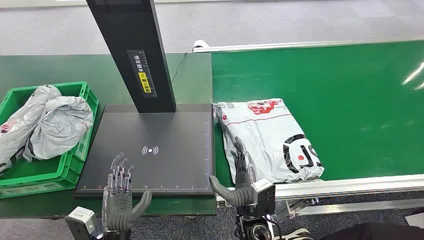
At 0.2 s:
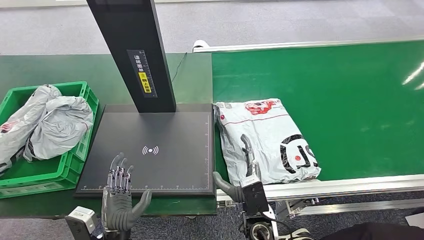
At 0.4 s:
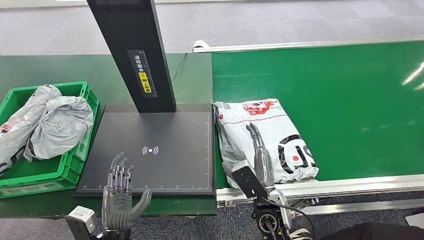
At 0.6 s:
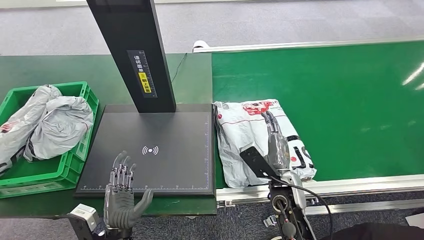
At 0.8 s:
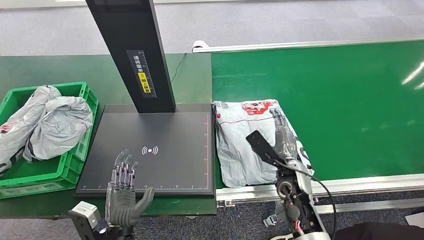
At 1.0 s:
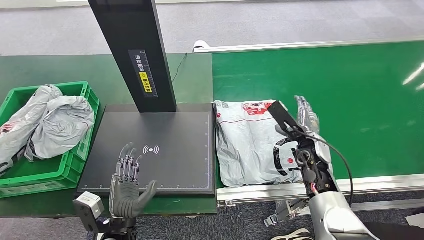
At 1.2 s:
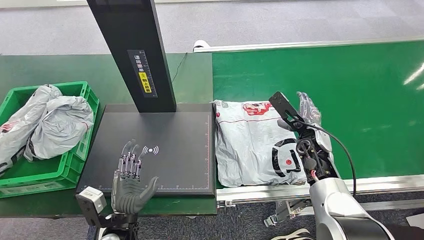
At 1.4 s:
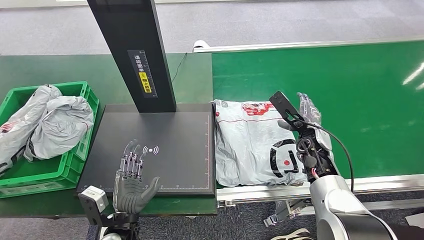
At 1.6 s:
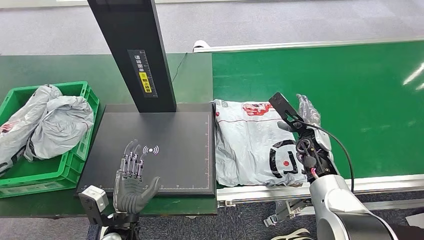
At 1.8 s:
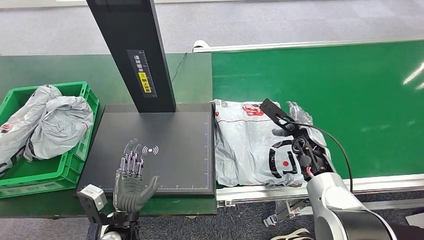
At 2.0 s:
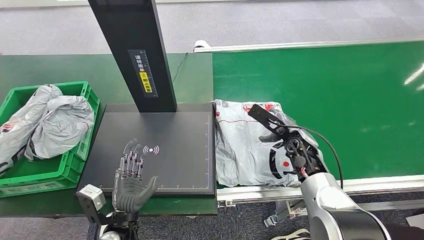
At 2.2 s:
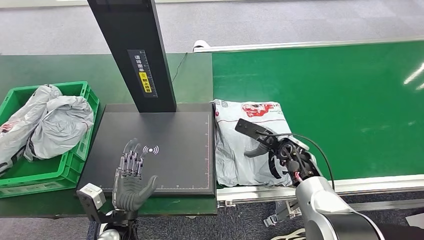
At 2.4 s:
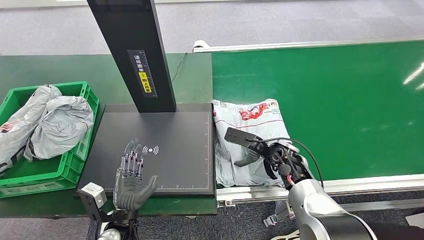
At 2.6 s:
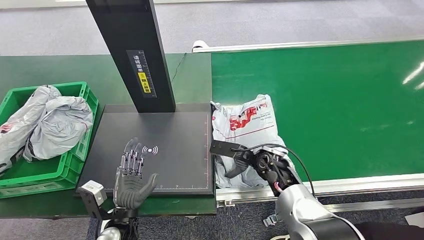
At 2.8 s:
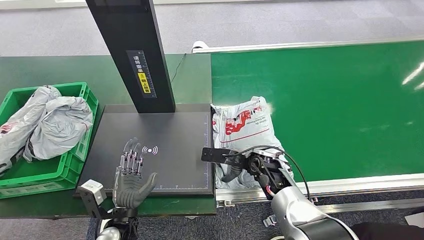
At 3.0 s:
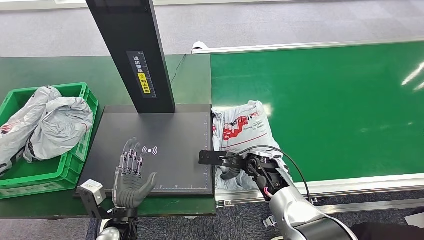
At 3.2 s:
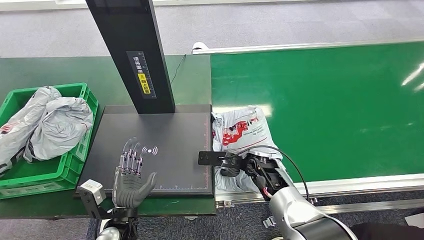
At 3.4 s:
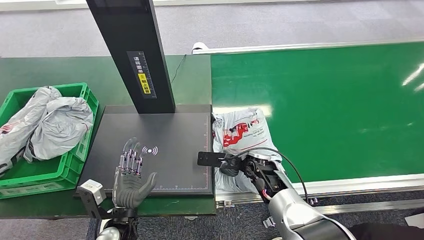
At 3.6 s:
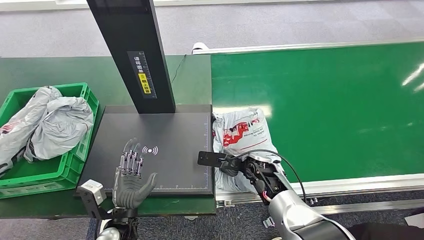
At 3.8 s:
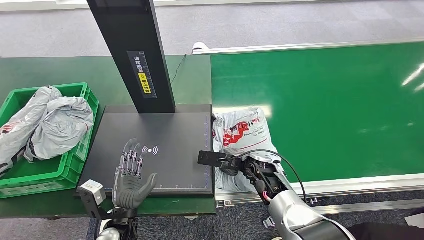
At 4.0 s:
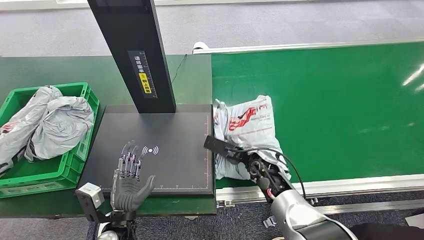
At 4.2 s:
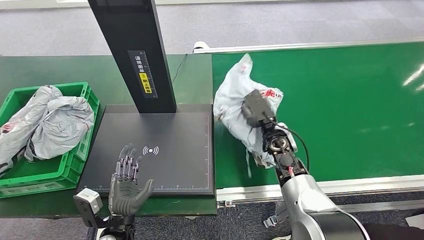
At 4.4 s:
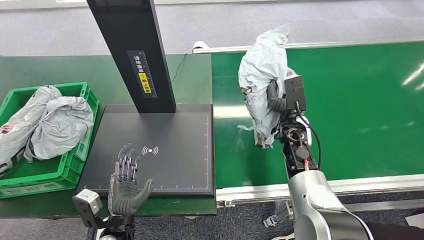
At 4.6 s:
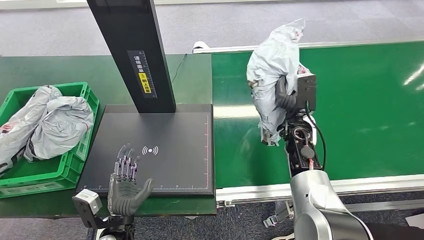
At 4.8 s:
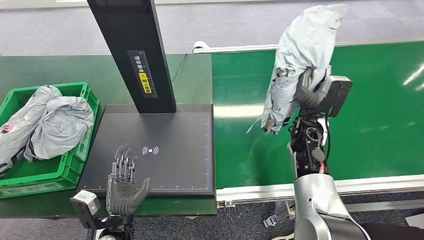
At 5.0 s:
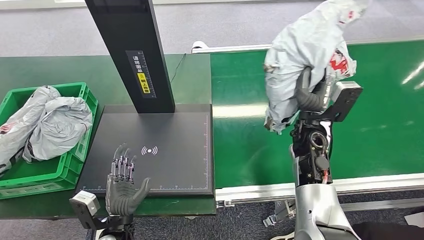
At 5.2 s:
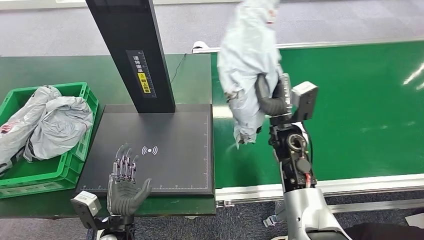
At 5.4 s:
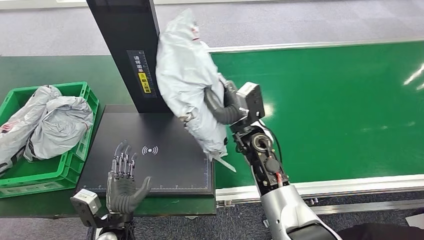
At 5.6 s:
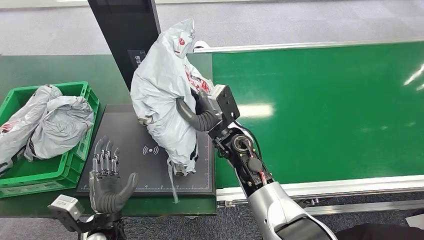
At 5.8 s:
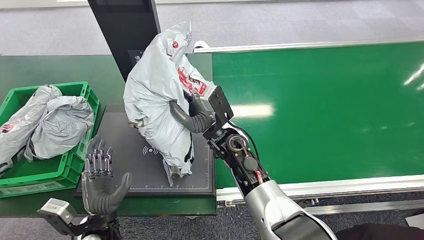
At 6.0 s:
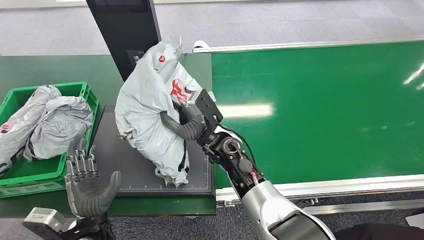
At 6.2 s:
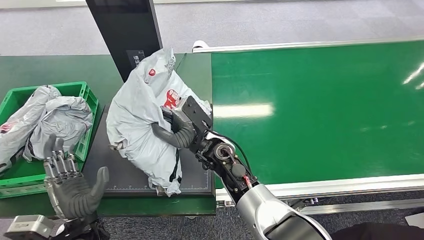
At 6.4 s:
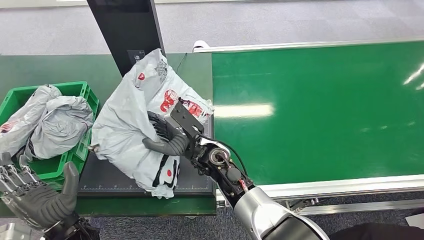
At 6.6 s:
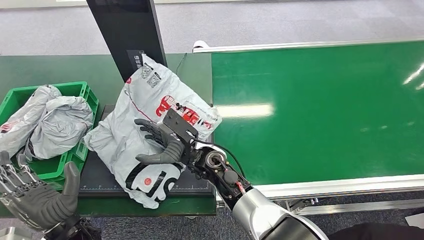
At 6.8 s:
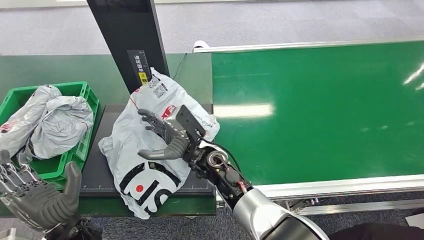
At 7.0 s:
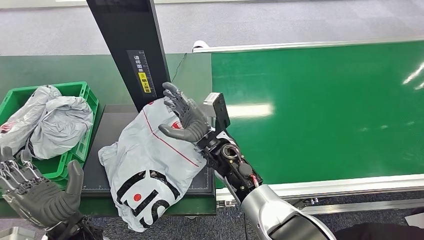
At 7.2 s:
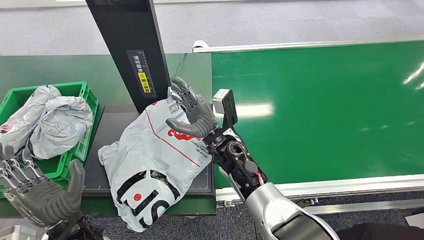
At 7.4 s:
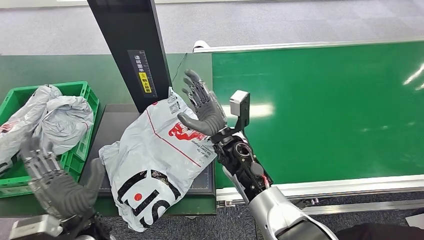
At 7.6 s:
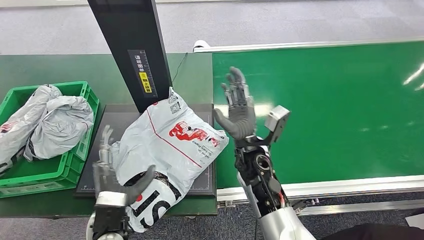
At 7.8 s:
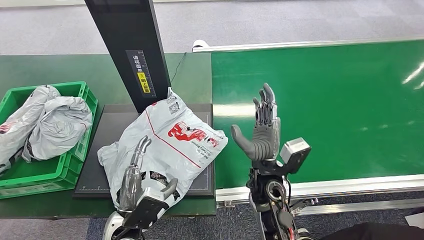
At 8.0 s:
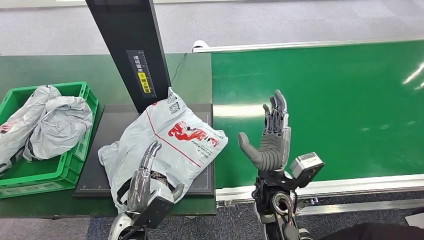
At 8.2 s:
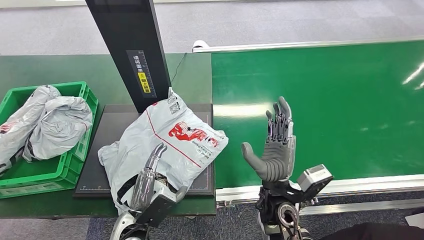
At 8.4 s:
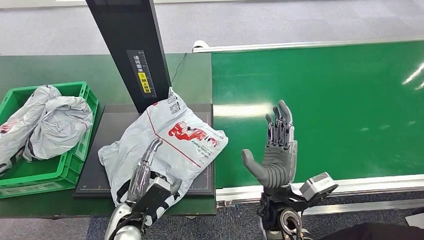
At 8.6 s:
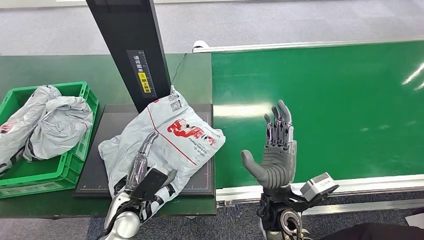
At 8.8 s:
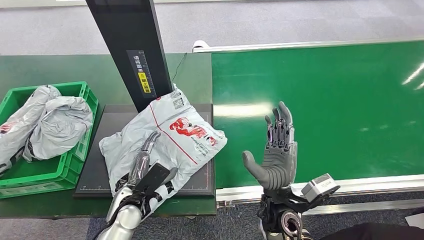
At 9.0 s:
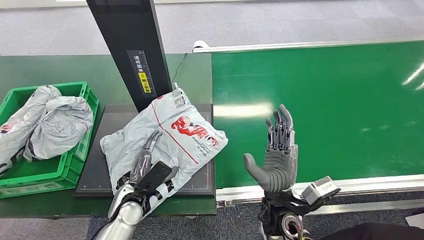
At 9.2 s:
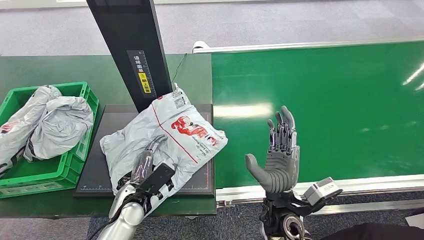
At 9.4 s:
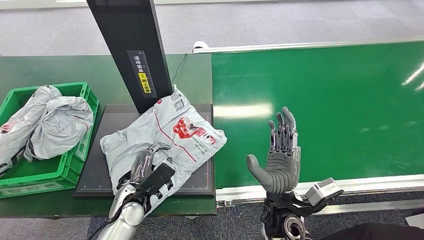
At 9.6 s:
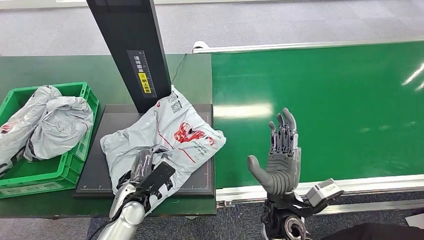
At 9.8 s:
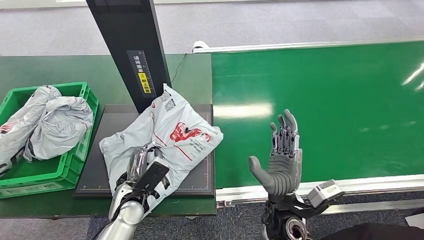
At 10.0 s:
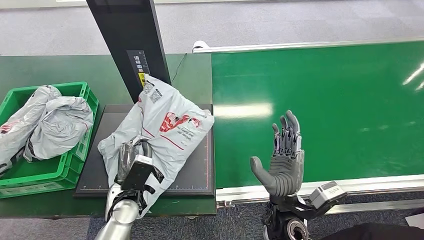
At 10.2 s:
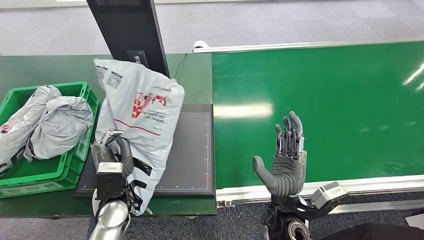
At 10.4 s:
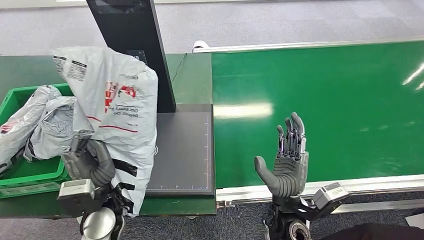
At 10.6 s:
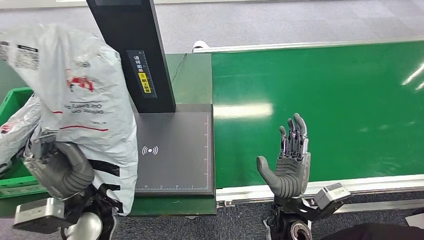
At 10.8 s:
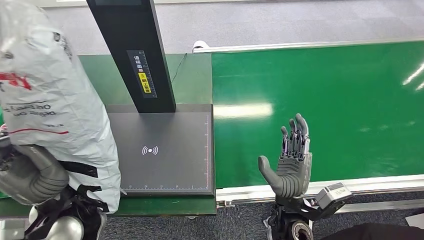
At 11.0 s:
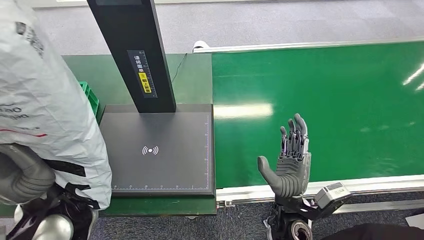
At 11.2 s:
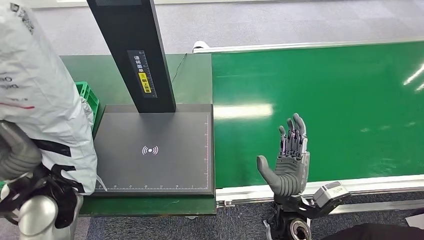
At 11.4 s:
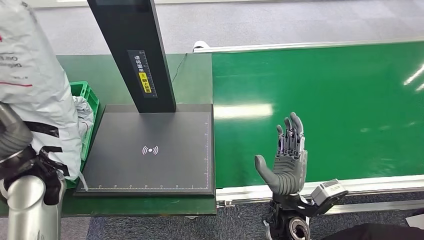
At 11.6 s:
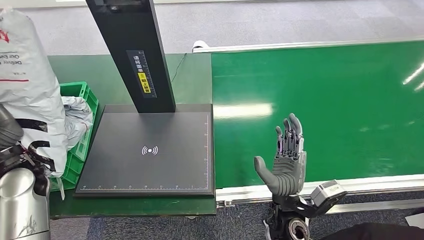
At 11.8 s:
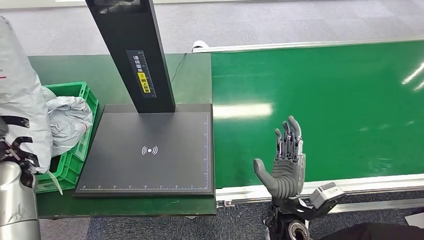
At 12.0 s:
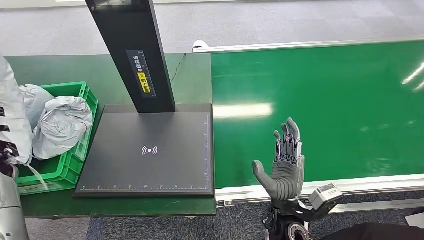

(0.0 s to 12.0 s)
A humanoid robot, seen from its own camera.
Step, 0.0 s - 4.6 s: Pick up the package from the conveyor belt.
Step, 4.8 s - 7.2 s: Place the package onto the inbound machine.
Step, 7.4 s - 10.4 s: Pick up the package from the inbound machine.
3.0 s - 4.4 s: The right hand moves upward, forward and to the right, some 10 cm.
7.6 s - 9.0 s: The left hand heads forward and downward, covering roughly 10 cm, while the right hand travels backward by about 10 cm.

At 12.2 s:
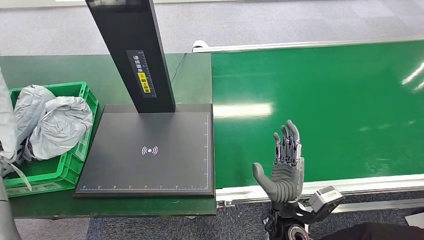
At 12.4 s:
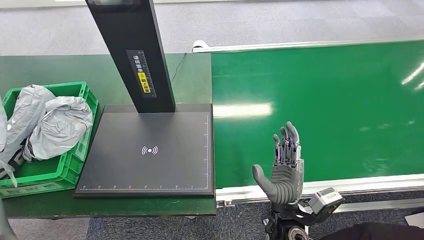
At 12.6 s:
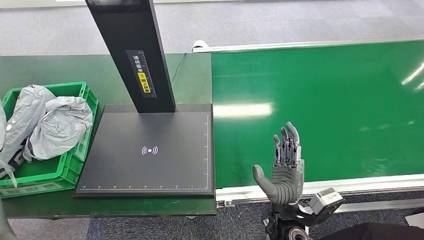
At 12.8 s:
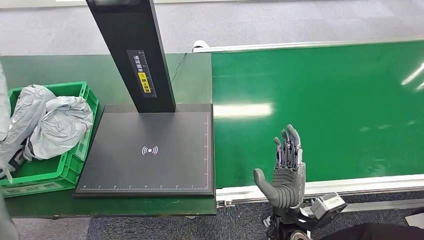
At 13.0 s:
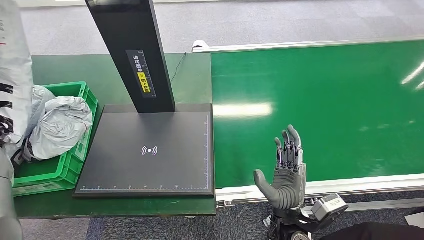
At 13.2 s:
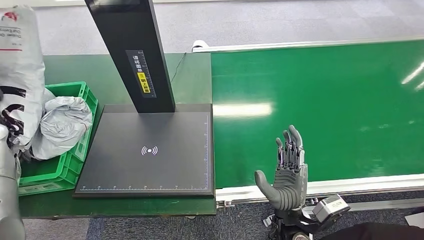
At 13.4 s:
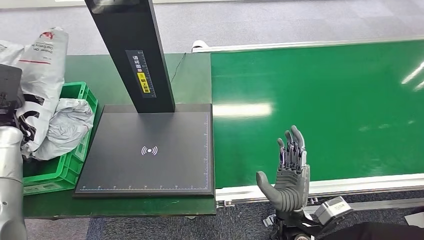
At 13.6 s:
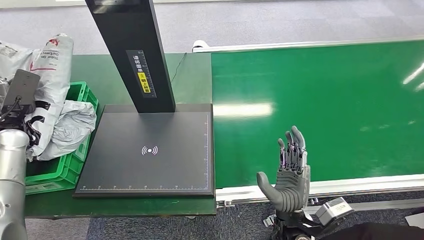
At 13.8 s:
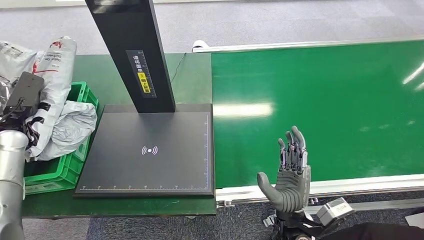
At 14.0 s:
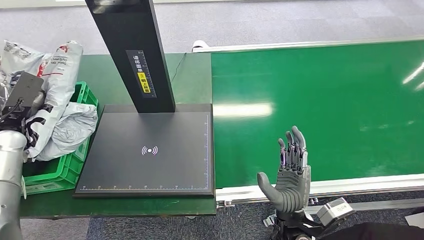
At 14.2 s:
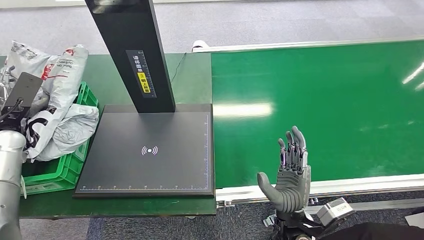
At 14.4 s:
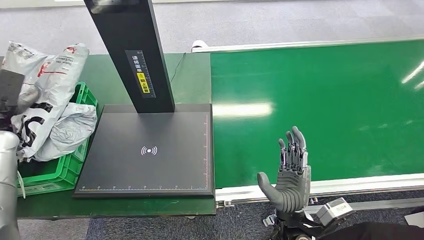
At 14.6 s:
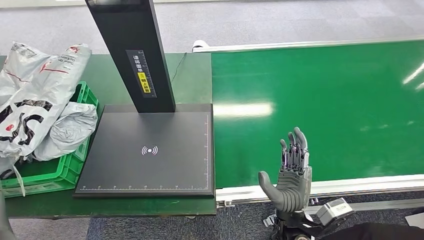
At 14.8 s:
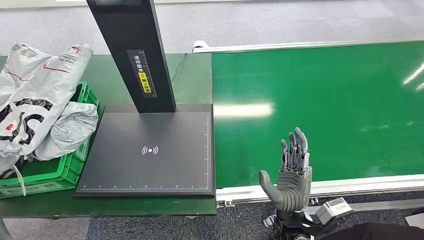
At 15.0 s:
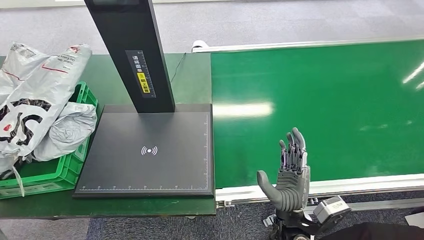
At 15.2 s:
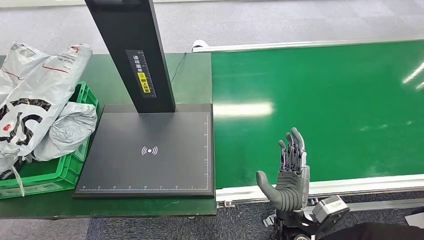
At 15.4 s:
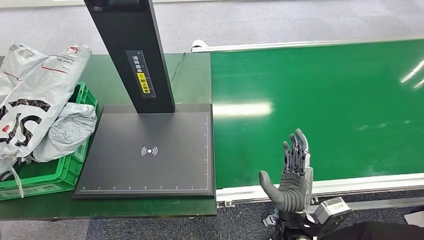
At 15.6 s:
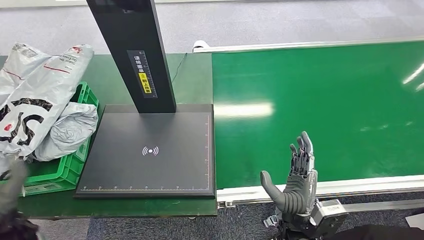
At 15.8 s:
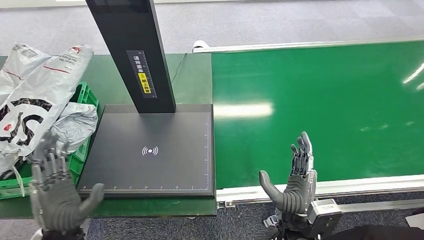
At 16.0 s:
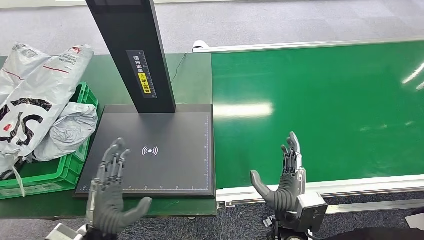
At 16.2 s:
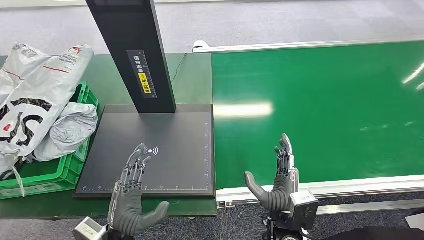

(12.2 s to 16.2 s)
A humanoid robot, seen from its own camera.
Step, 12.2 s - 16.0 s: Place the package into the parcel locker.
12.2 s - 13.6 s: The left hand shifts by some 5 cm.
13.6 s - 14.8 s: The left hand shifts about 5 cm to the left and upward.
14.8 s - 16.2 s: The left hand heads to the right, backward and downward, covering about 40 cm.
